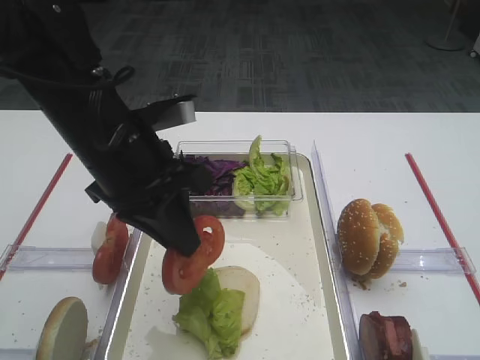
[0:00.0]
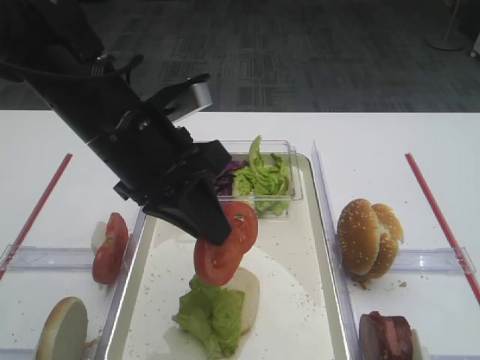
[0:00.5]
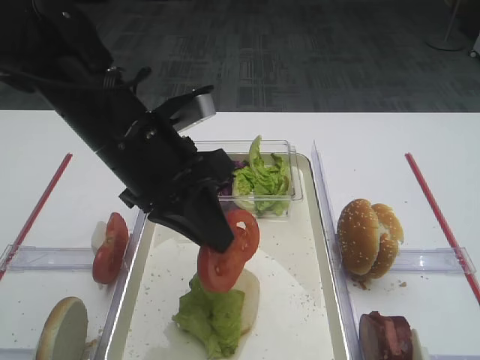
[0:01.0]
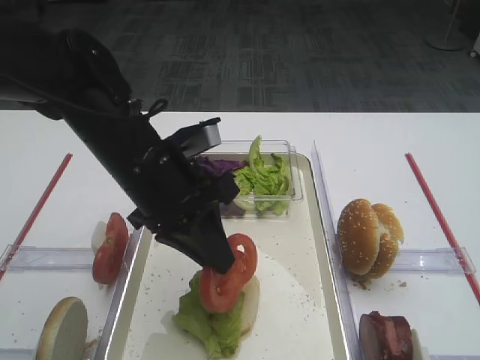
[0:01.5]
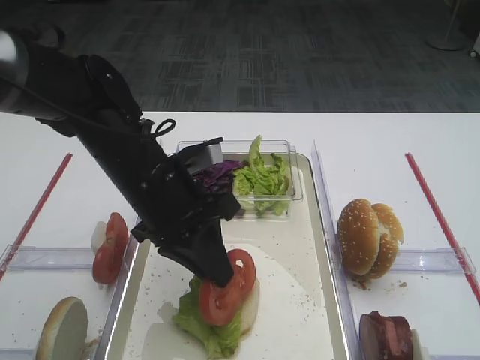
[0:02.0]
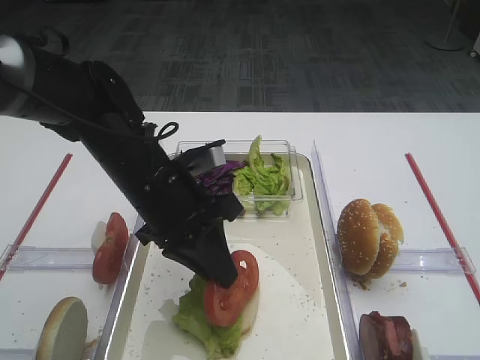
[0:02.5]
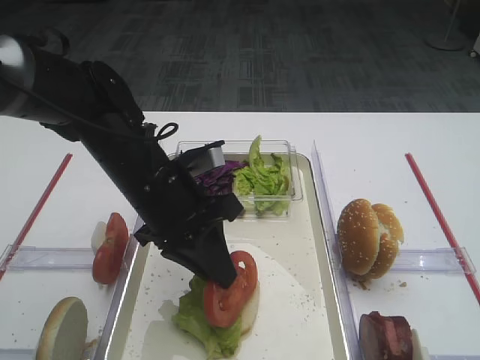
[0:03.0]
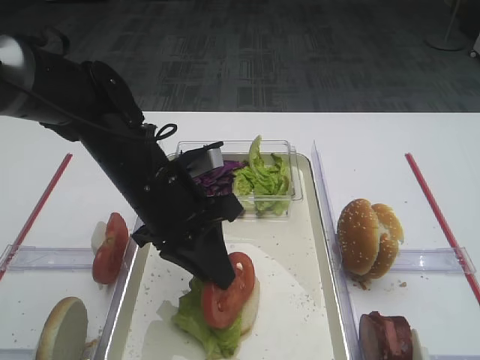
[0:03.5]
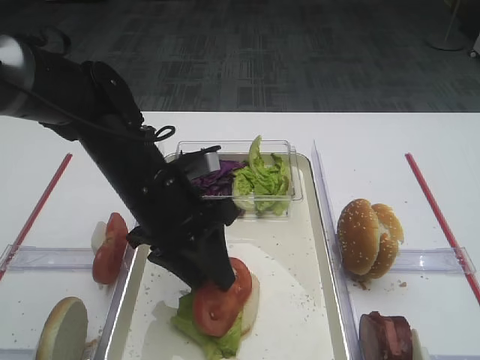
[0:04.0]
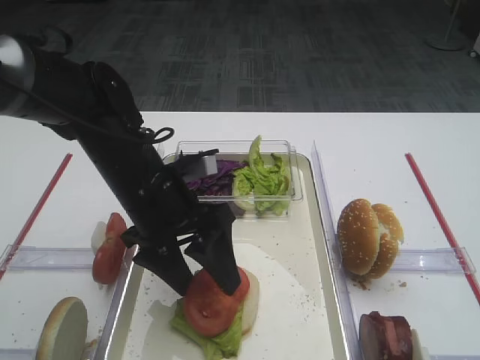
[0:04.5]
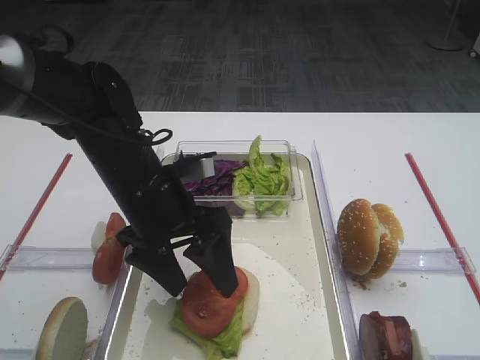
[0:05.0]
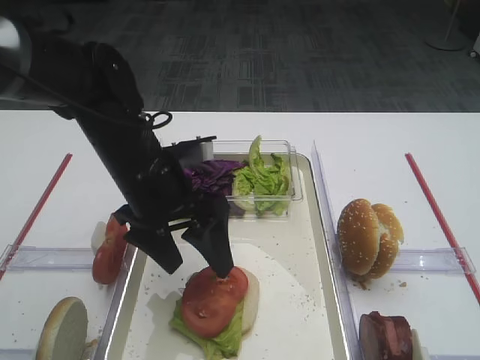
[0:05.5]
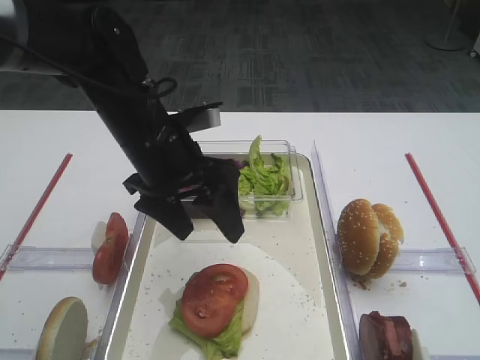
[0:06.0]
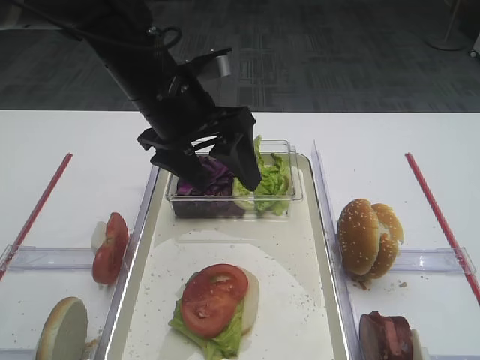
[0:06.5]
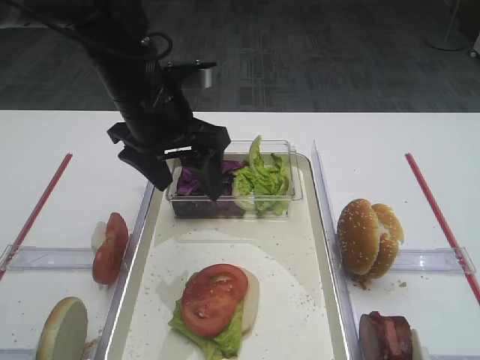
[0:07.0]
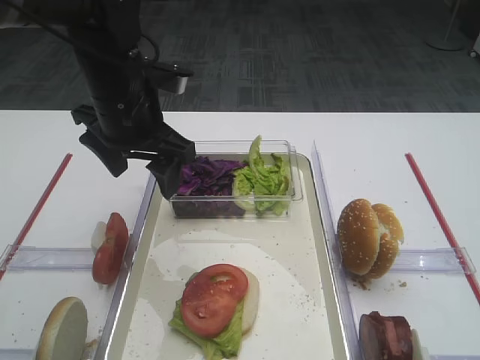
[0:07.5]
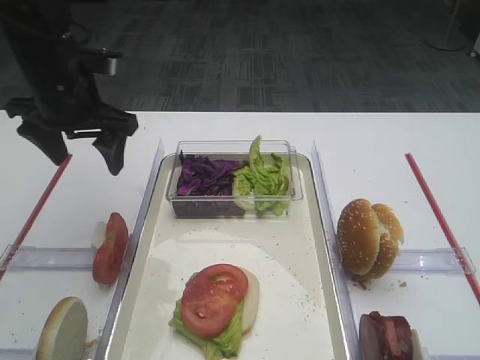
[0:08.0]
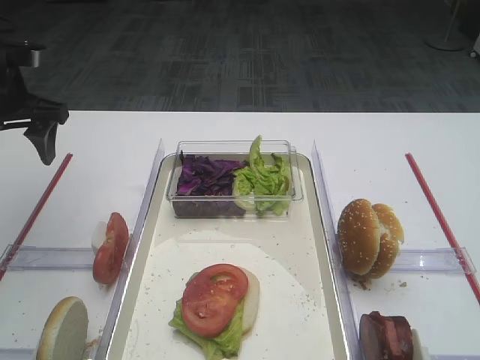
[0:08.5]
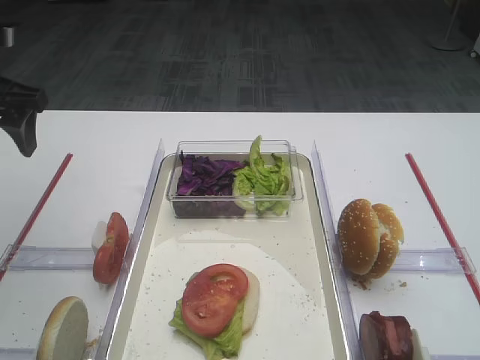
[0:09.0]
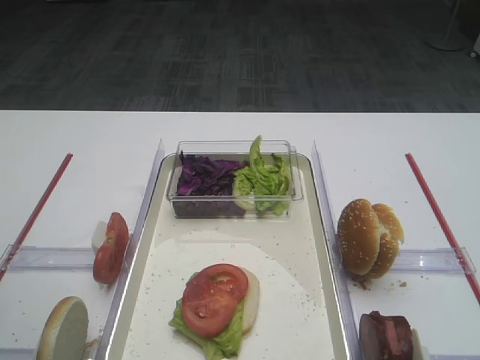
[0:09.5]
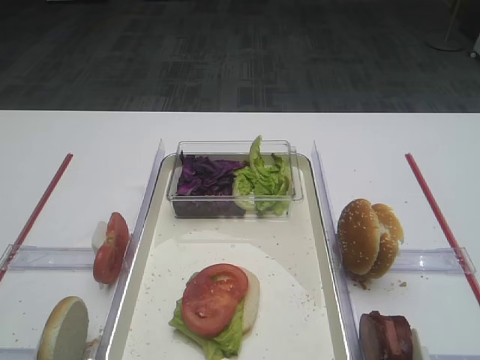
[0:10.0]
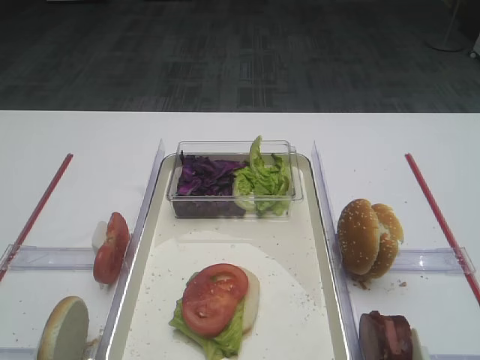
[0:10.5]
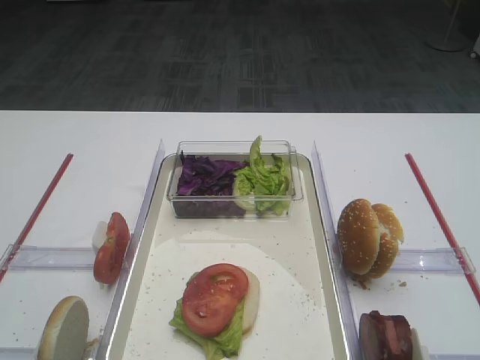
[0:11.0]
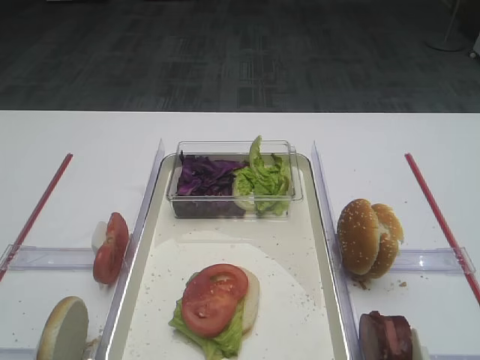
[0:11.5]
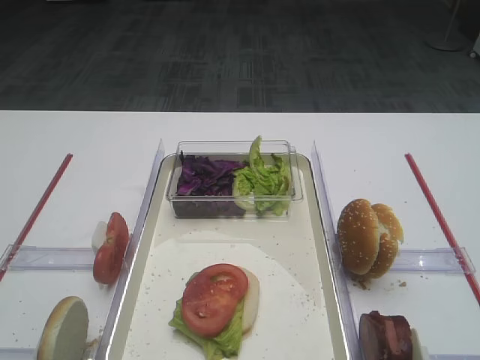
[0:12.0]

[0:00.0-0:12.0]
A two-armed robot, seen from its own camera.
Step, 0:00.0 to 0:05.5: Place the tomato slice on the lettuce leaf with the left gripper.
0:00.0 to 0:02.0: The left gripper shifts approximately 5 cm downward.
0:02.0 to 0:04.0: The left gripper opens its fingers.
0:04.0 to 0:06.0: The left gripper changes place by about 5 cm, and opens its fingers.
0:06.0 to 0:08.0: The left gripper moves to the left and forward, about 15 cm.
0:08.0 to 0:10.0: The left gripper travels backward by about 30 cm.

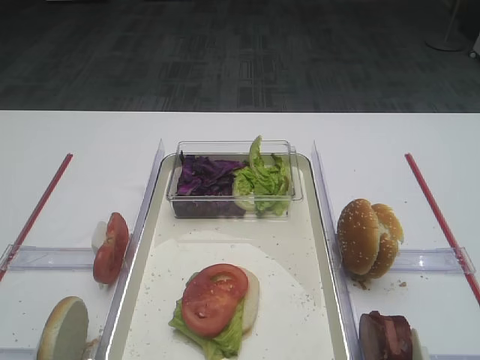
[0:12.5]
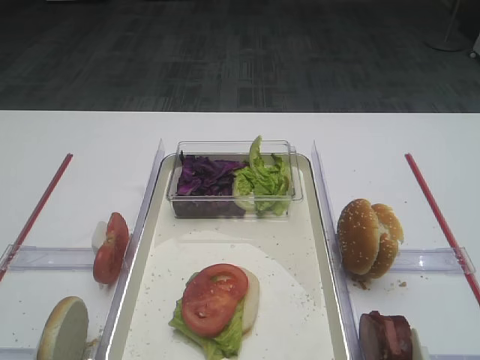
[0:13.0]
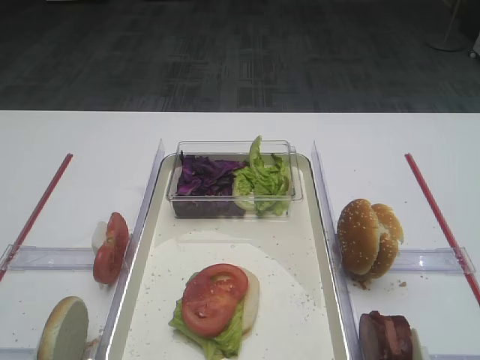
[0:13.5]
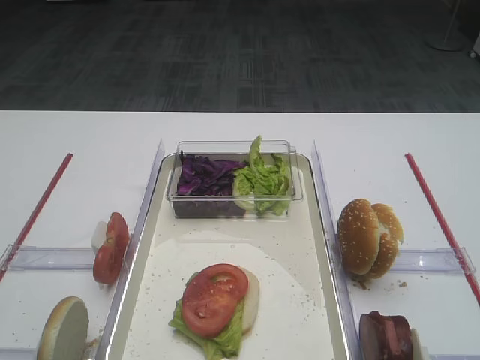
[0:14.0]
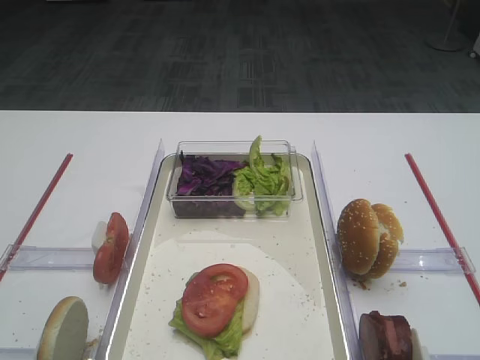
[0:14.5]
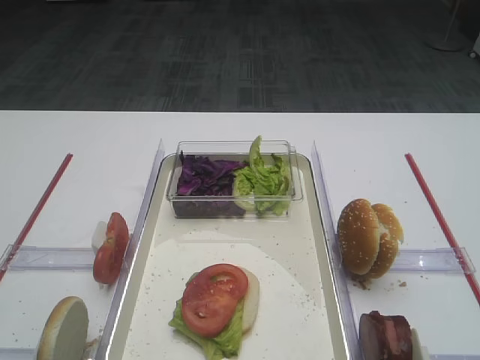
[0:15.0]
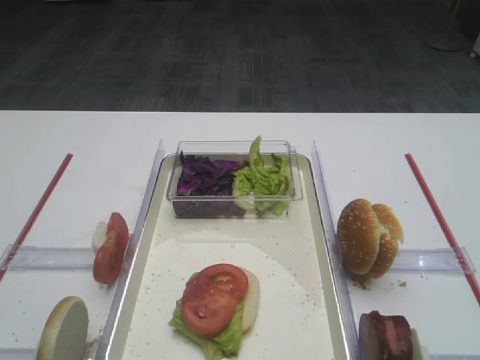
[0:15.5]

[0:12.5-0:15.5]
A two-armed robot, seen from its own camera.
0:12.5 to 0:15.5: Both grippers stay about where they are.

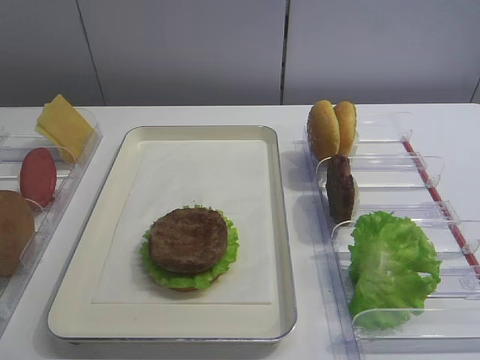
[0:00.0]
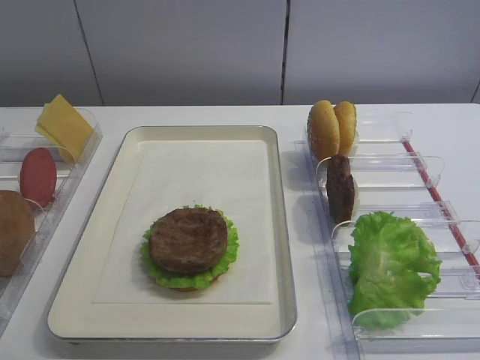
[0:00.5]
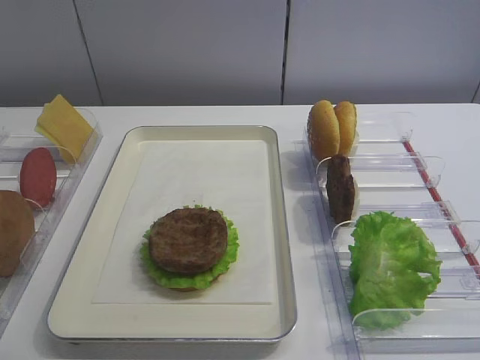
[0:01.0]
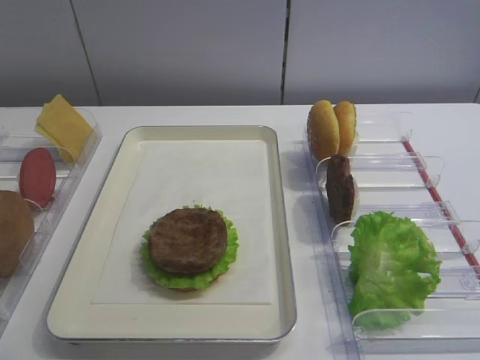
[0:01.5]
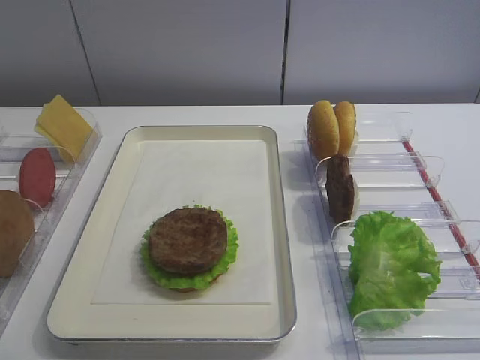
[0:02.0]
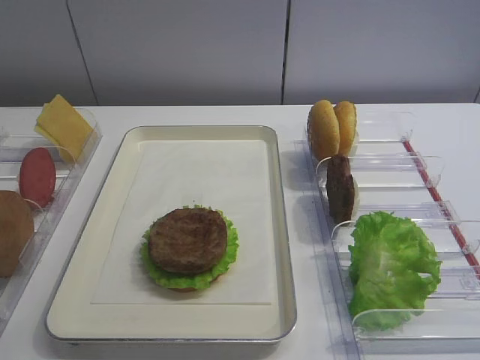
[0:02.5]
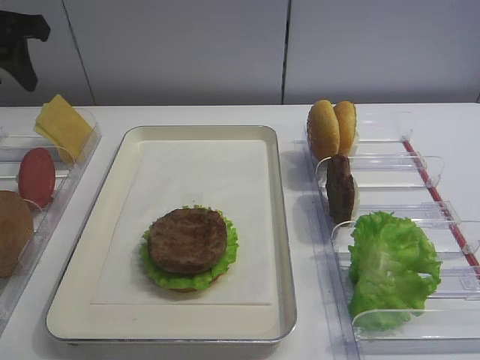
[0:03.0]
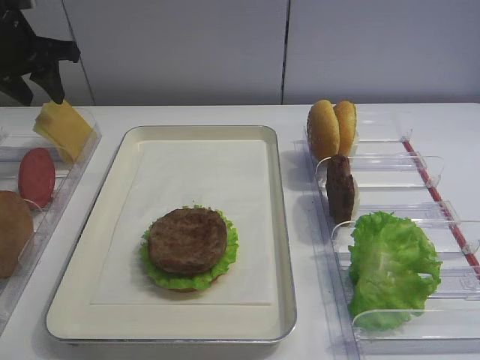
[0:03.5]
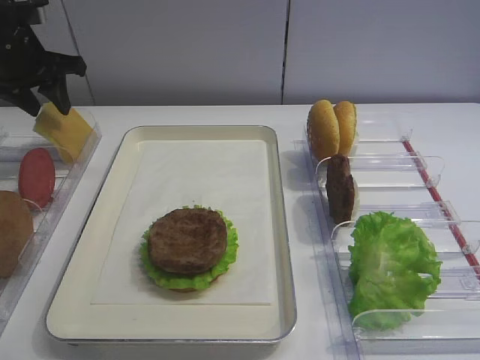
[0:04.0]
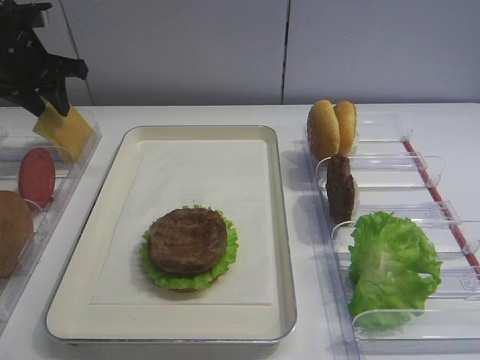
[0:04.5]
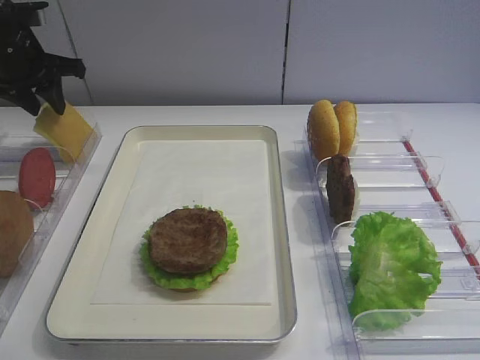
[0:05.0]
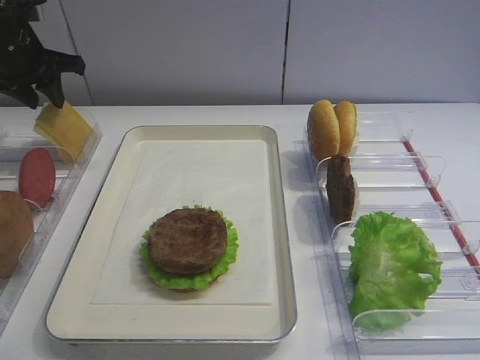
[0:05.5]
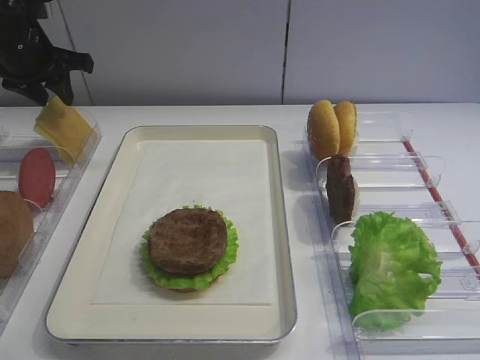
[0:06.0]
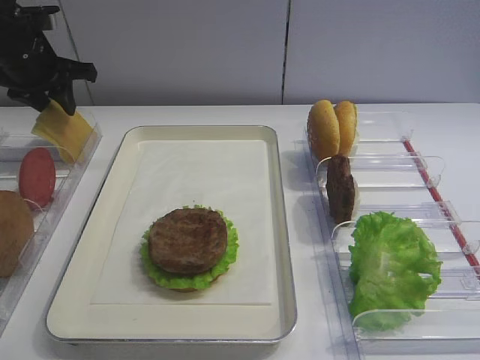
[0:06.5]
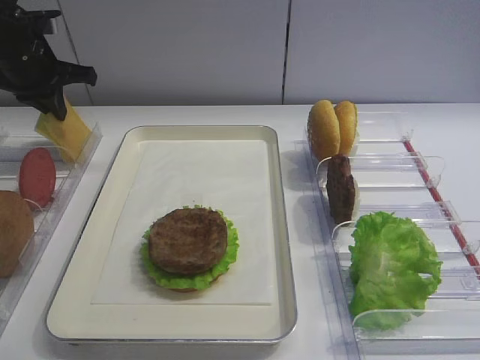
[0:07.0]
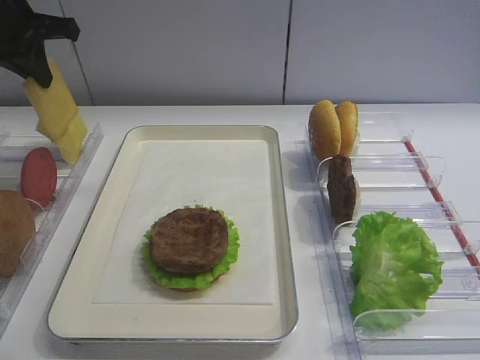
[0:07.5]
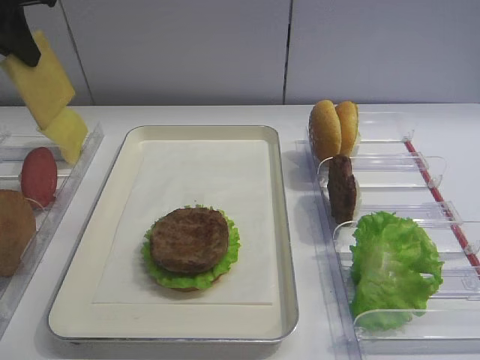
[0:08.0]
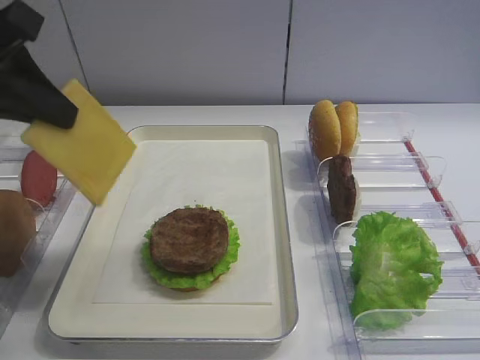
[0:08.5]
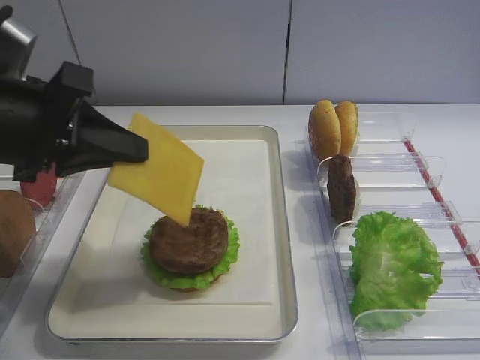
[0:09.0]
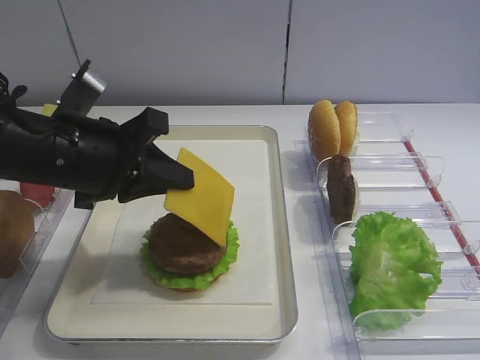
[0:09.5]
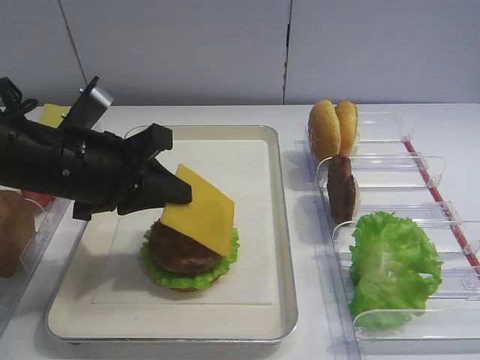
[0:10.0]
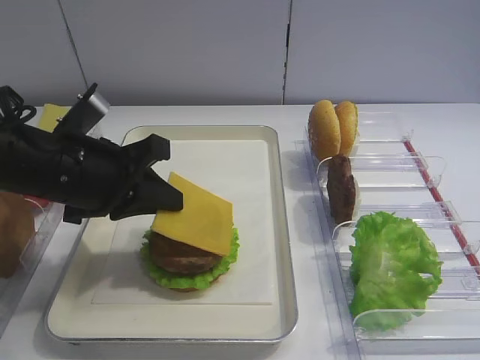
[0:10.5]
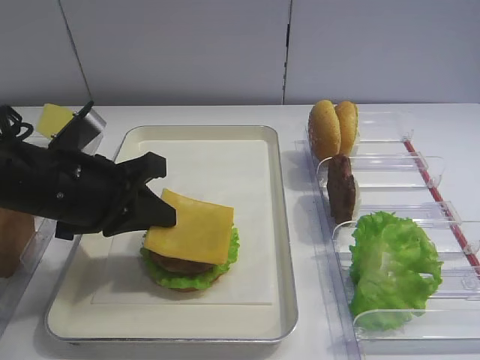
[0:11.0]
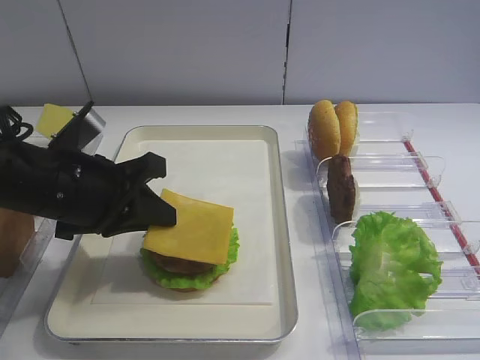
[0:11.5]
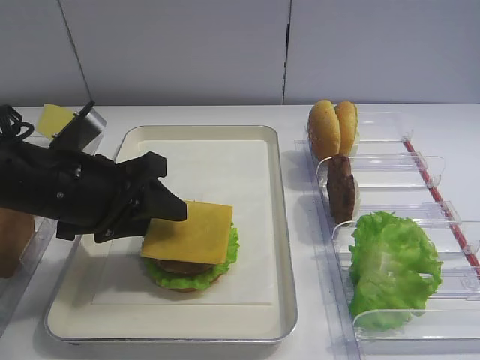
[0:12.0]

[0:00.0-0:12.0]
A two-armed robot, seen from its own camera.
Step, 0:00.0 to 0:07.5: Pick up the cheese slice with the left gripper.
0:02.0 to 0:04.0: The left gripper is displaced forward by some 40 cm.
0:04.0 to 0:06.0: The grippers move only a little.
0:06.0 to 0:08.0: The left gripper travels upward and backward by some 15 cm, and closes up.
0:08.0 to 0:10.0: The left gripper shifts some 20 cm downward, to the right and backward.
0:10.0 to 0:12.0: The left gripper opens.
